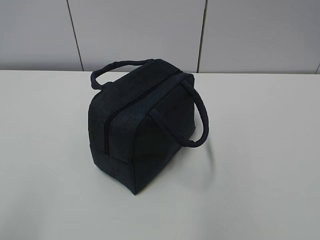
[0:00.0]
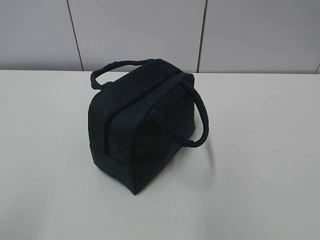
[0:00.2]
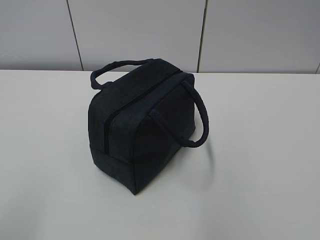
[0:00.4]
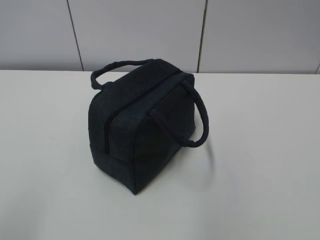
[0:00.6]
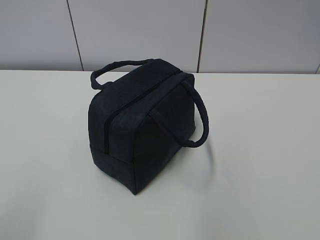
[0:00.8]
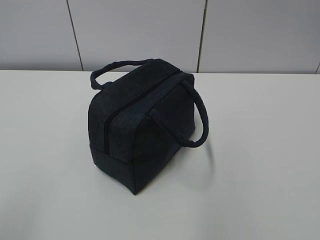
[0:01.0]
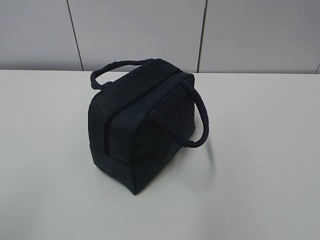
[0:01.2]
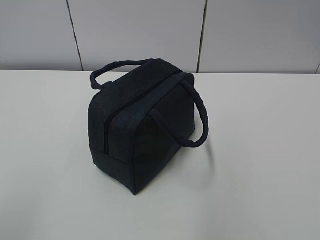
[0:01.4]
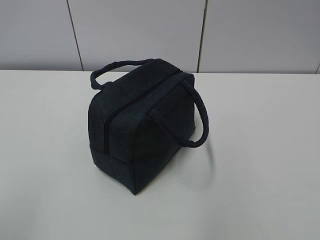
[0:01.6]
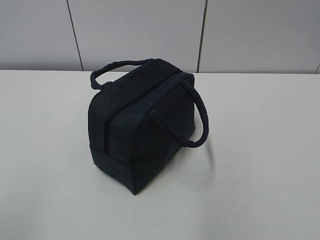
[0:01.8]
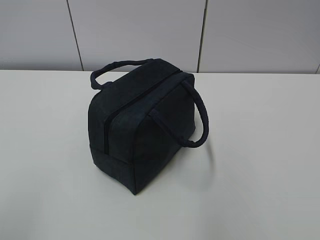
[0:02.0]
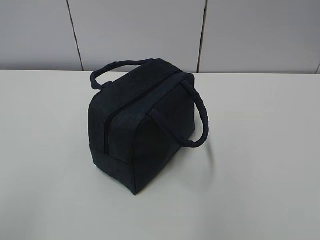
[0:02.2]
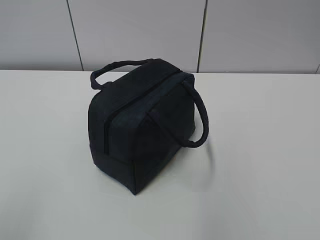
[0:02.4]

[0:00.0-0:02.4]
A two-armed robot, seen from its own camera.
0:01.2 to 0:02.4: Both grippers stay about where they are.

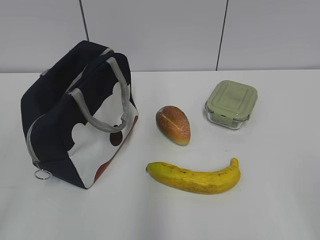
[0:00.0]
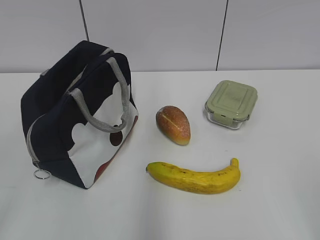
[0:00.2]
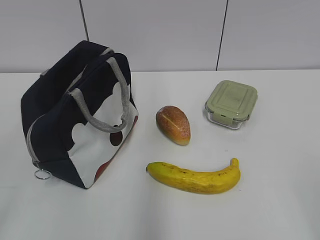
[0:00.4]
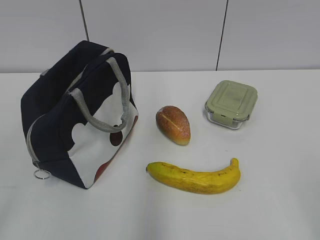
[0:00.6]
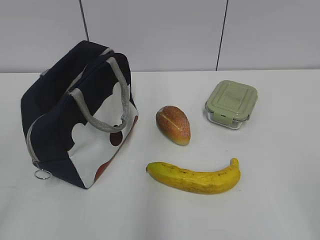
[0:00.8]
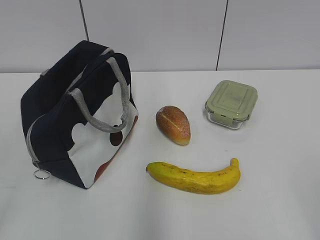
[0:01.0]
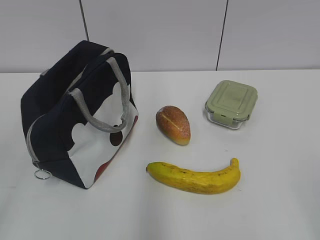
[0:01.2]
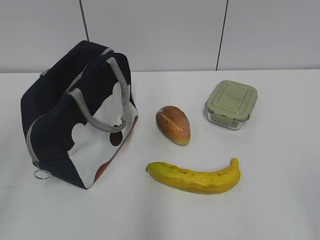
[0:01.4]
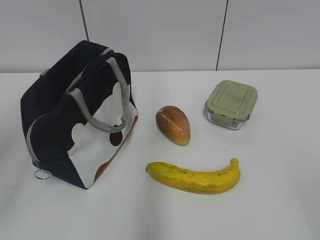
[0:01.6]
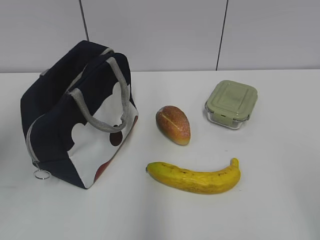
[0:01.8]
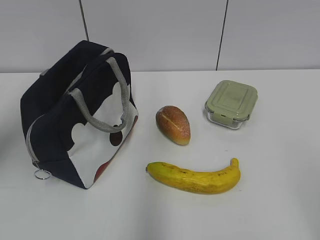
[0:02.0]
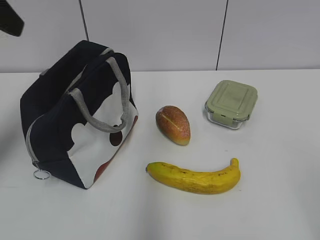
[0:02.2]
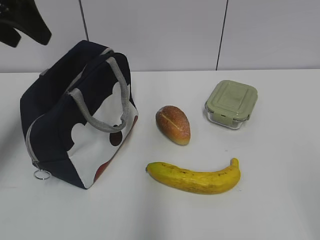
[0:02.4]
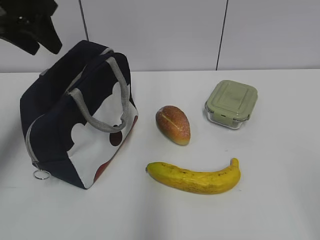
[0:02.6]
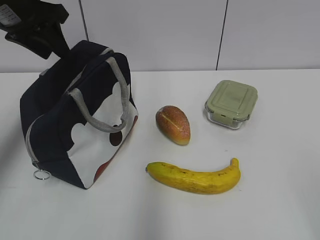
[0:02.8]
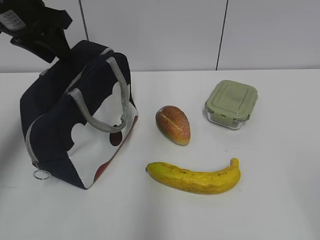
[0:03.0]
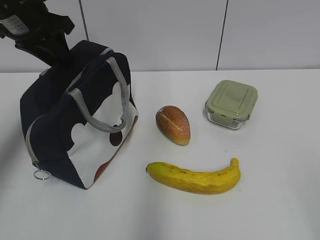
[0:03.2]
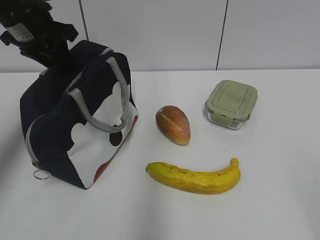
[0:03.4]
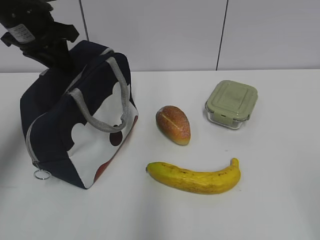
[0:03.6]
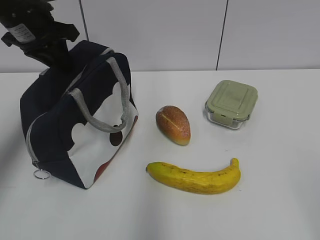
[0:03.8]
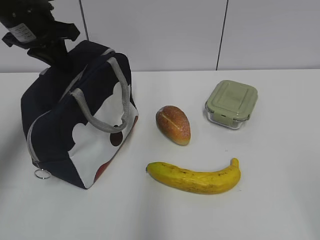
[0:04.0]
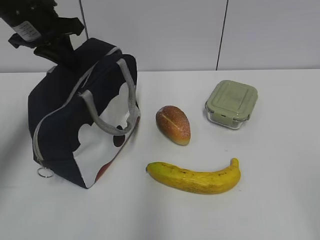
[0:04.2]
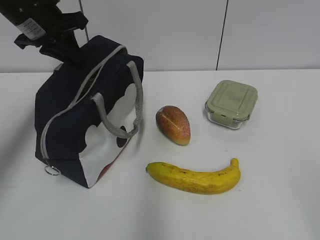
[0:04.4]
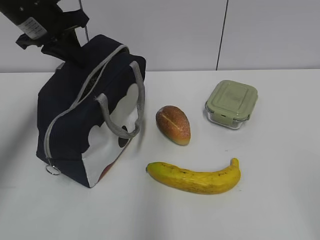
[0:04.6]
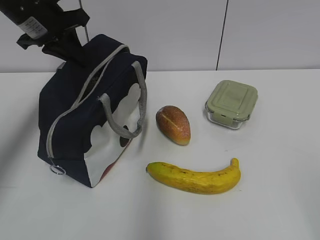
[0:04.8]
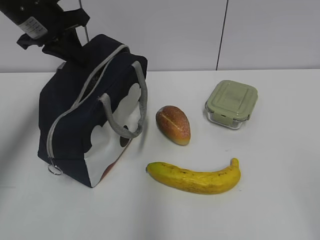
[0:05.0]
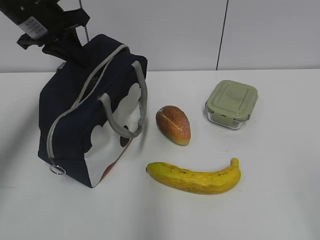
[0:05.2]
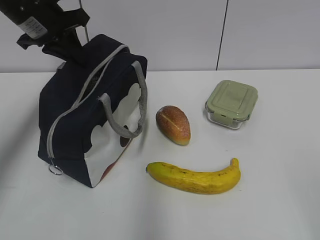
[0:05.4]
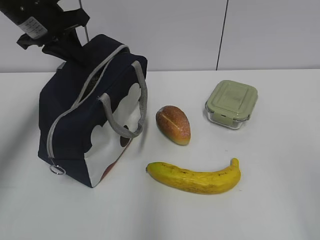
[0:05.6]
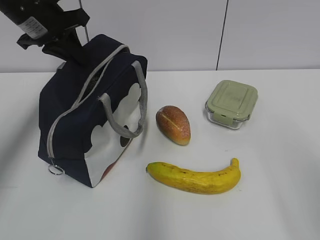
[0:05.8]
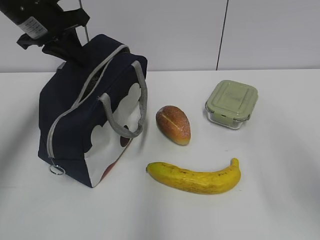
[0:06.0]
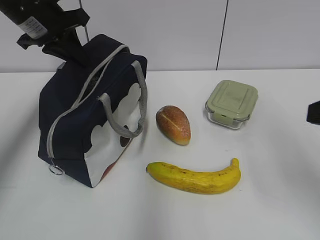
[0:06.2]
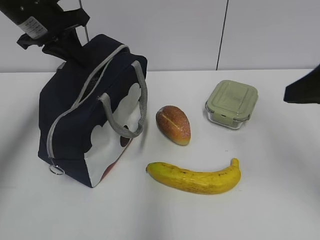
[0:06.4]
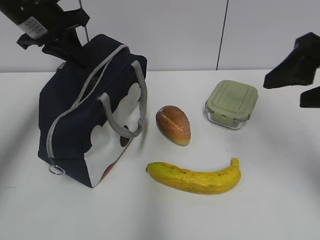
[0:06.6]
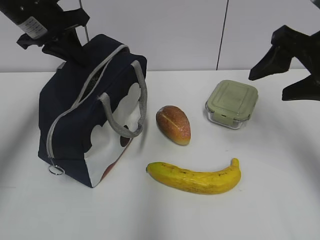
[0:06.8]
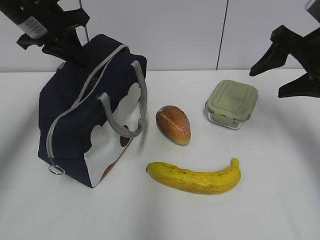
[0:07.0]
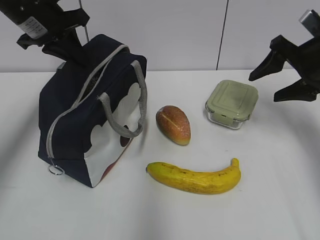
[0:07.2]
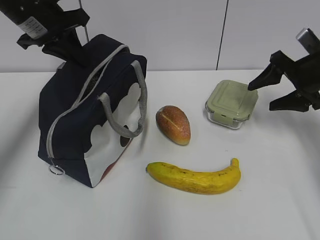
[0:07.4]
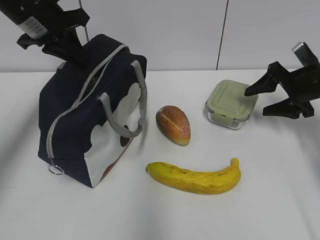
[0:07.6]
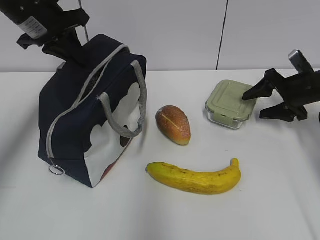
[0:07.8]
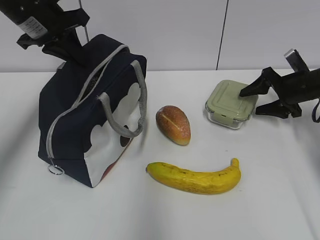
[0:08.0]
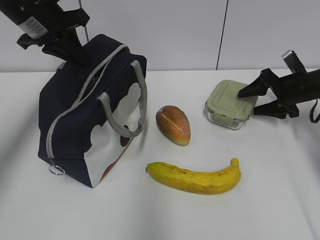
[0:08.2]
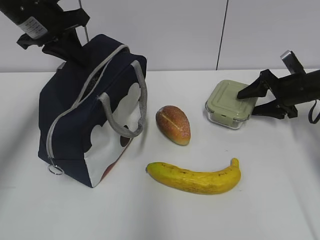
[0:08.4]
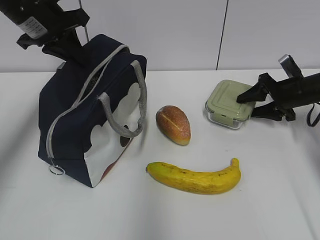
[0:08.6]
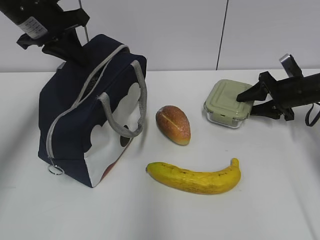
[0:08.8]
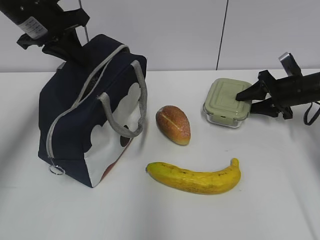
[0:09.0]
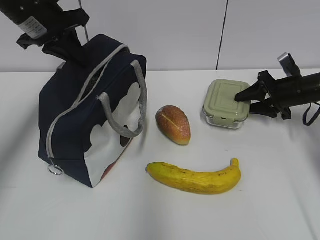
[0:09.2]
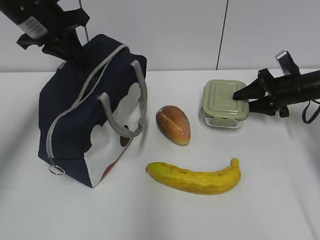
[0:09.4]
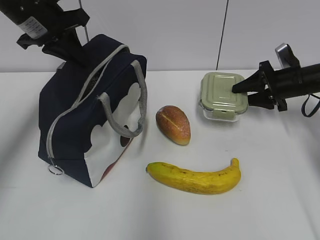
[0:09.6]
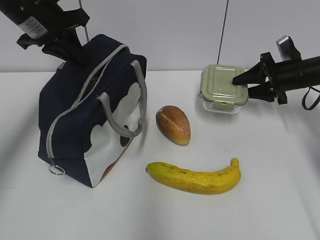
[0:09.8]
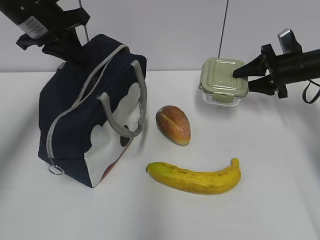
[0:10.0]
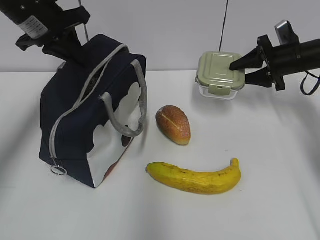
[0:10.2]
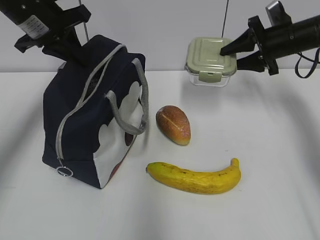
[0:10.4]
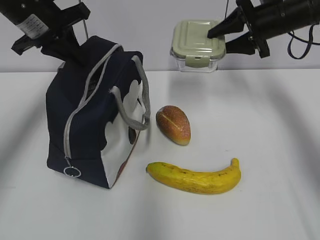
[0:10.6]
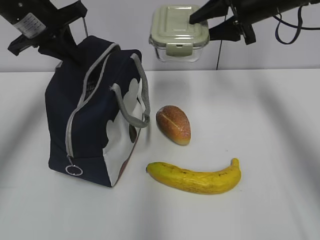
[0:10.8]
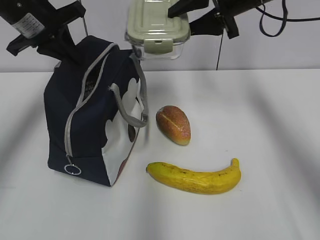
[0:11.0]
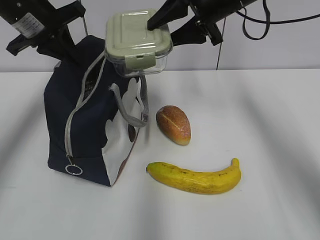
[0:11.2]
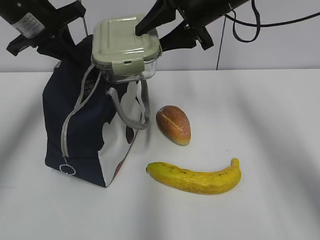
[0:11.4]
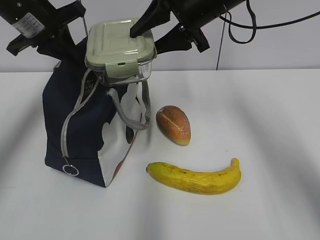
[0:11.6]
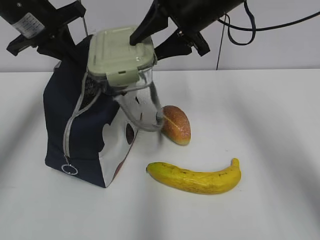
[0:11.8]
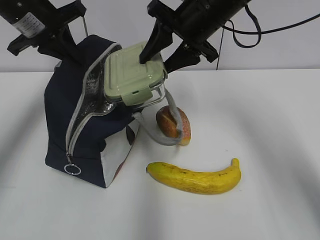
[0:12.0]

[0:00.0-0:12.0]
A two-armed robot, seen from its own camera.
Step, 0:00.0 to 0:09.0: Grab the lunch box with your right hand.
0:01.6 to 0:03.0: The left gripper goes about 30 cm forward, and closes up.
0:03.0 to 0:04.4: The left gripper closes its fingers.
0:04.4 to 0:06.0: The right gripper travels forward by about 10 cm.
0:06.0 to 0:07.6: The right gripper goes approximately 30 cm forward and downward.
0:07.6 to 0:09.0: The right gripper goes roughly 5 cm downward, and closes its fingers.
0:09.0 to 0:10.4: The right gripper is displaced upward by about 10 cm.
0:10.4 to 0:12.0: The right gripper shifts about 20 cm to the left and upward.

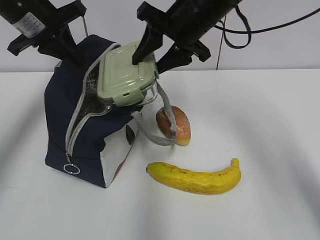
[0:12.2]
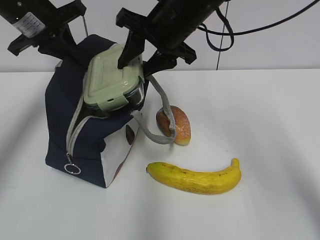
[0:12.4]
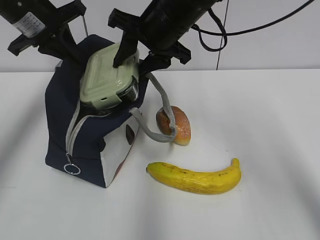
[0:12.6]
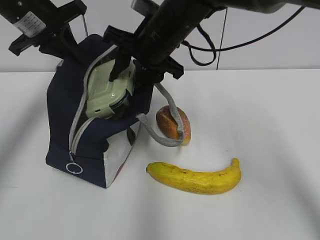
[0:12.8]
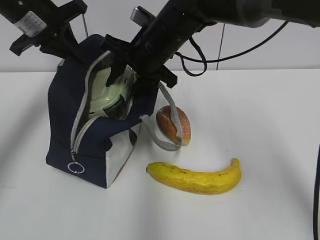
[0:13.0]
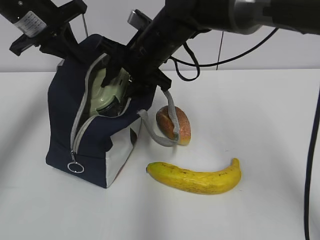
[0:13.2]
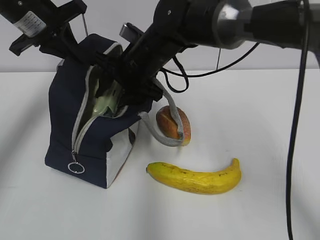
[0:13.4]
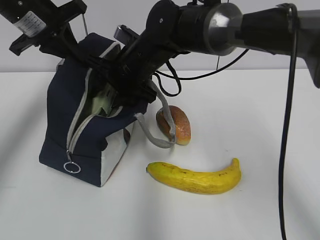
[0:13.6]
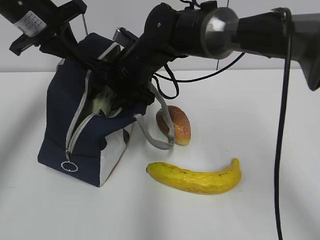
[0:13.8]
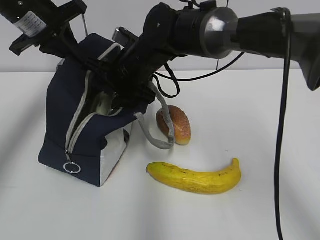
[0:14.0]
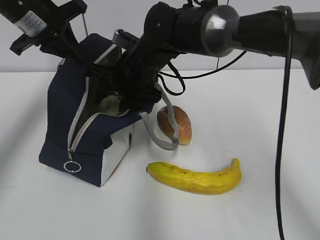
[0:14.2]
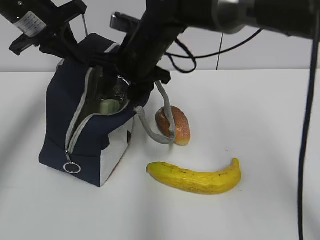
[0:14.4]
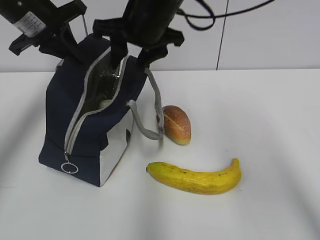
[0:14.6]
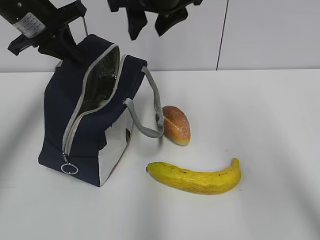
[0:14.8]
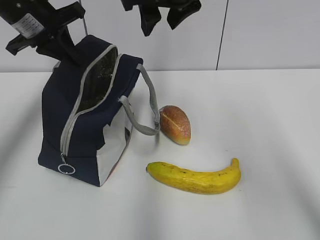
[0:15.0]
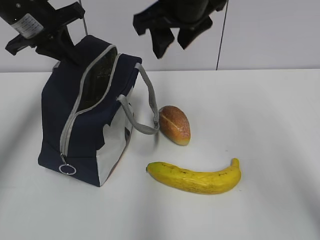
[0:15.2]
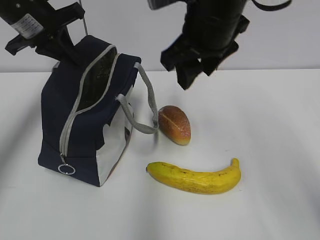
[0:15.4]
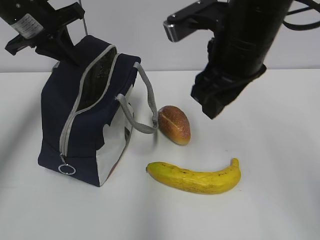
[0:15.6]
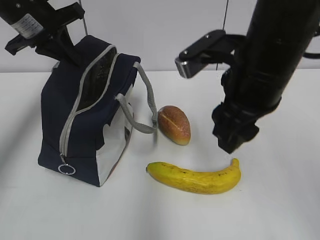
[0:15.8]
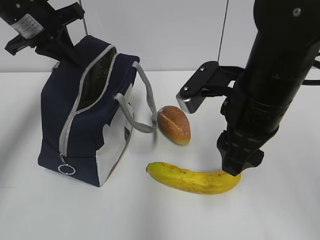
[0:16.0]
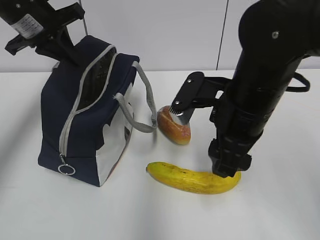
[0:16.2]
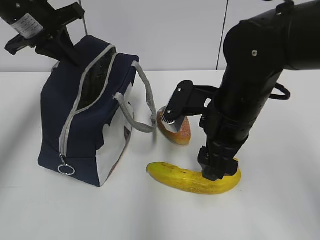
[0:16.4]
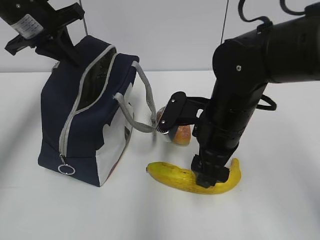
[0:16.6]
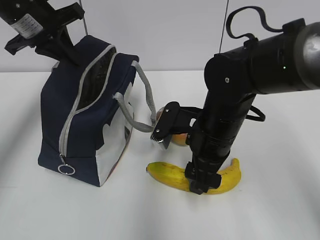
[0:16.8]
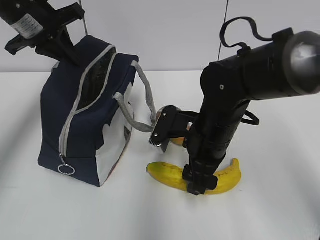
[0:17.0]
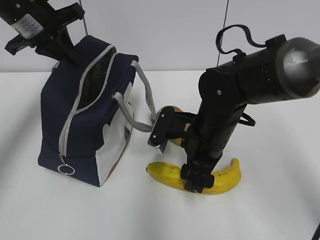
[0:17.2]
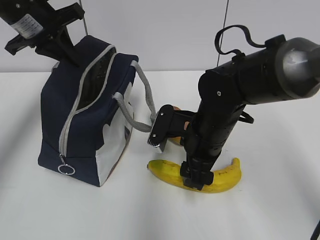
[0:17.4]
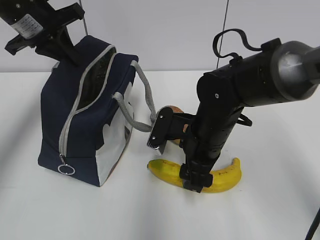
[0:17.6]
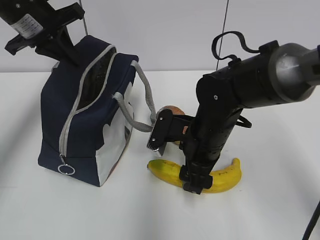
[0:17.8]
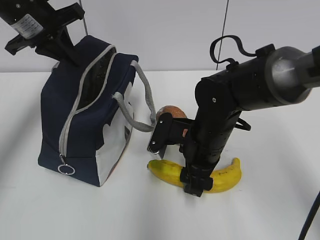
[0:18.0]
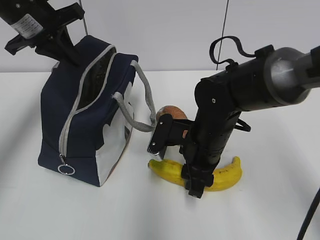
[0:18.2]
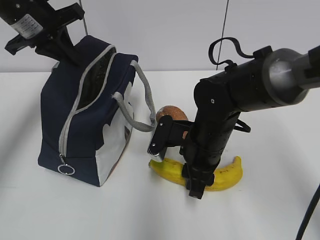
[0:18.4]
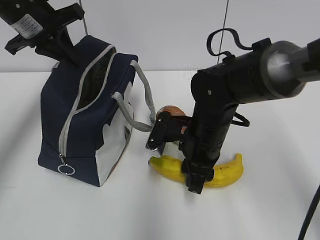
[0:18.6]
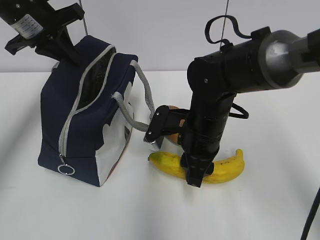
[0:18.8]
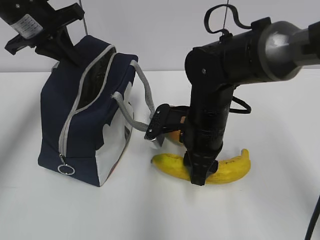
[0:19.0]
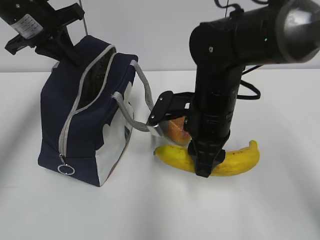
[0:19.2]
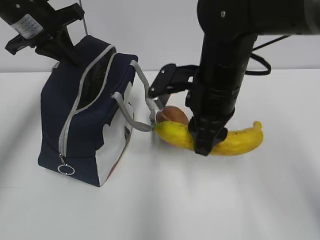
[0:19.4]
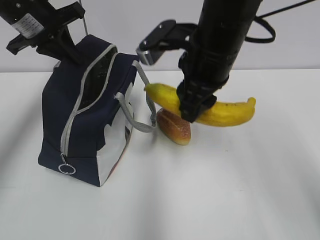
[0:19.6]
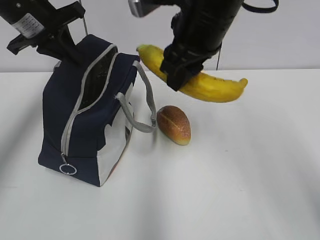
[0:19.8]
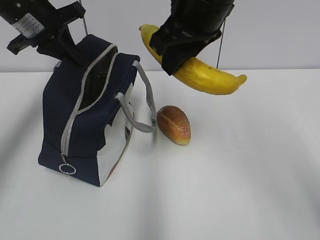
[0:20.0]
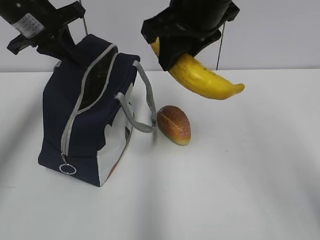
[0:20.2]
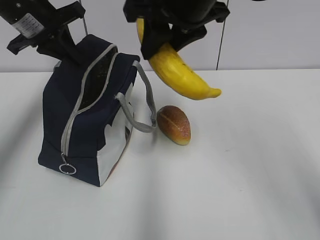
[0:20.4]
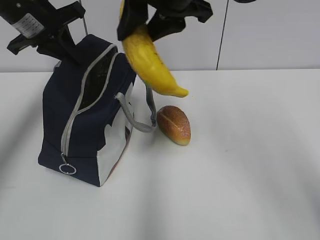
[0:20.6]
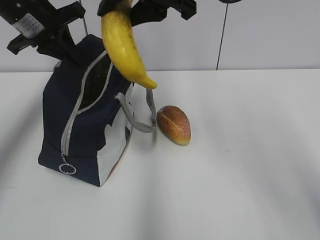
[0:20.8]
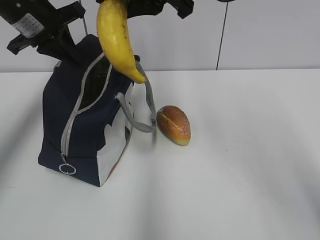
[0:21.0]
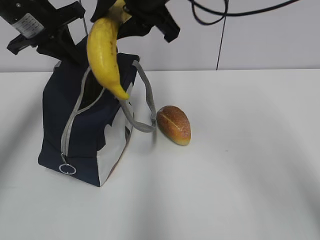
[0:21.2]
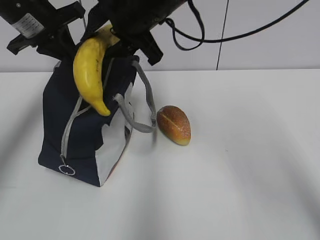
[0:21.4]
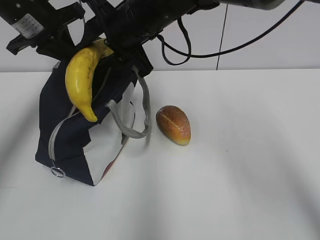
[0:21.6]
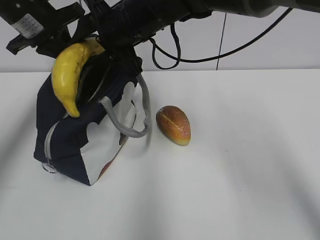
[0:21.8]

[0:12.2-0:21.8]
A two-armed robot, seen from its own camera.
Step, 0:12.4 to 0:14.2: Place it into the bag with your right hand.
Step, 0:14.6 to 0:18.2: Grab the banana with your right hand.
0:12.2 to 0:13.8: The right gripper heads to the left and downward, covering approximately 15 cm.
0:13.8 to 0:15.4: The right gripper travels upward, to the right and backward by some 15 cm.
0:15.4 to 0:17.0: The right gripper shifts roughly 15 cm downward.
0:17.0 to 0:18.6: The right gripper closes up.
0:18.6 to 0:20.2: The right gripper is displaced upward by roughly 20 cm.
0:20.2 to 0:21.8: The right gripper is displaced to the left, forward and downward by some 10 cm.
